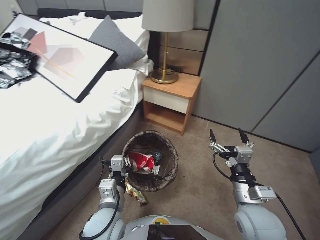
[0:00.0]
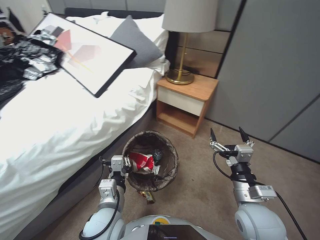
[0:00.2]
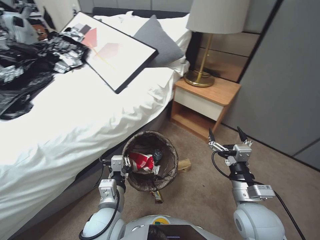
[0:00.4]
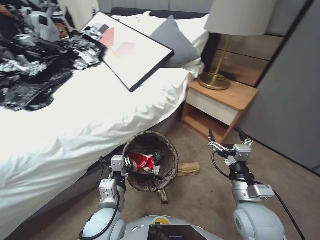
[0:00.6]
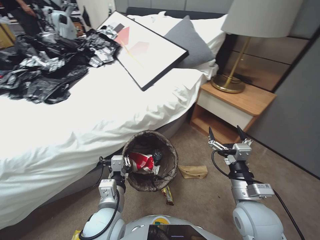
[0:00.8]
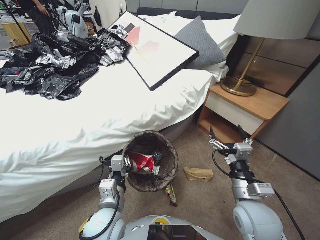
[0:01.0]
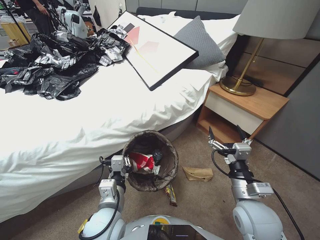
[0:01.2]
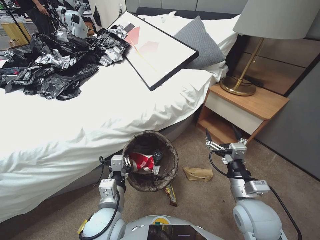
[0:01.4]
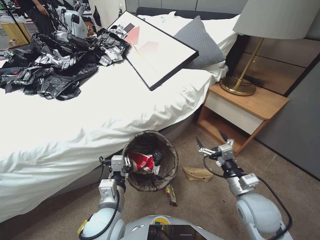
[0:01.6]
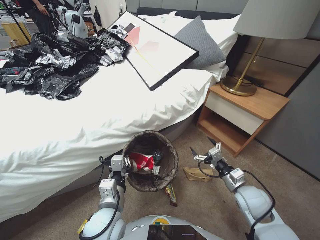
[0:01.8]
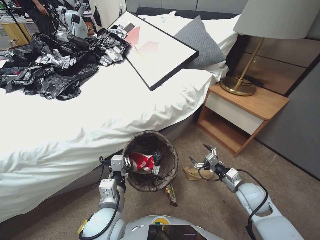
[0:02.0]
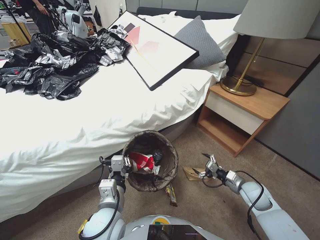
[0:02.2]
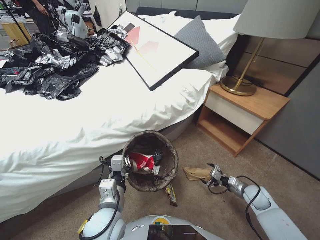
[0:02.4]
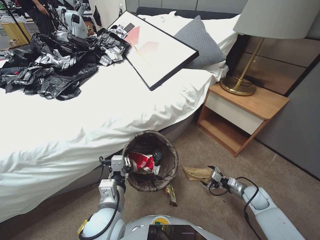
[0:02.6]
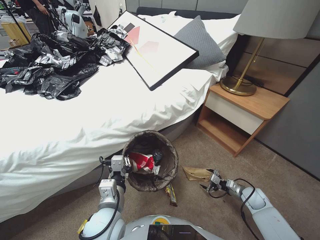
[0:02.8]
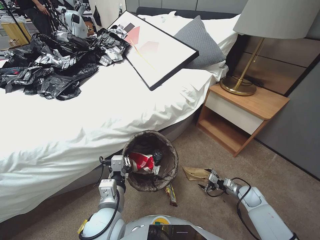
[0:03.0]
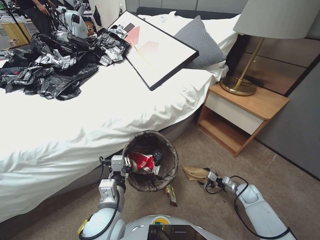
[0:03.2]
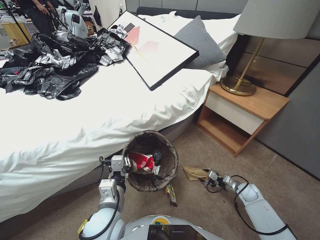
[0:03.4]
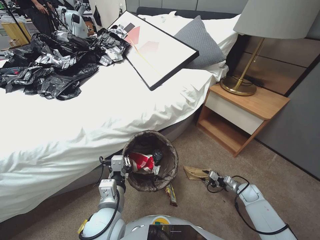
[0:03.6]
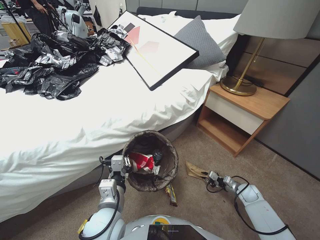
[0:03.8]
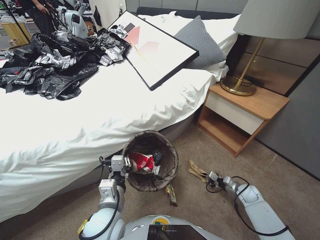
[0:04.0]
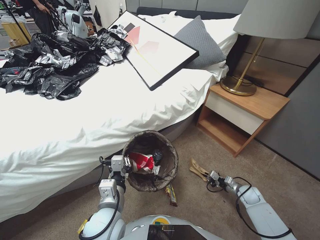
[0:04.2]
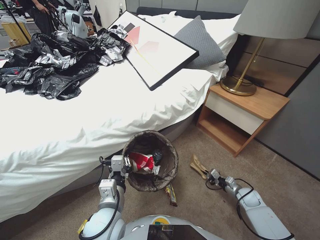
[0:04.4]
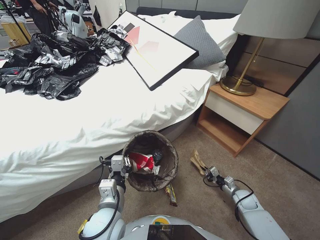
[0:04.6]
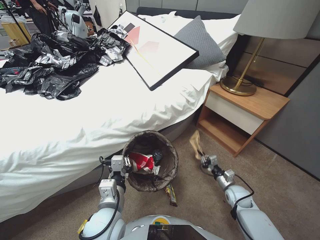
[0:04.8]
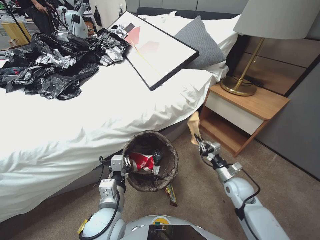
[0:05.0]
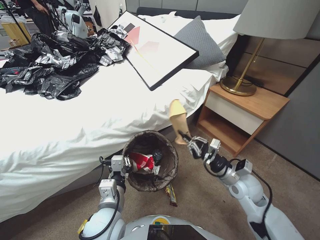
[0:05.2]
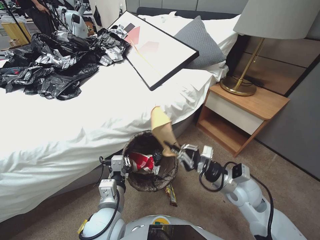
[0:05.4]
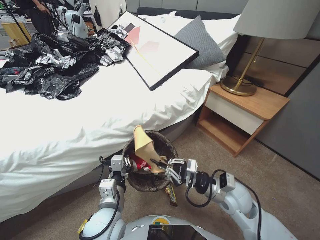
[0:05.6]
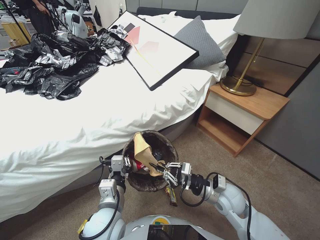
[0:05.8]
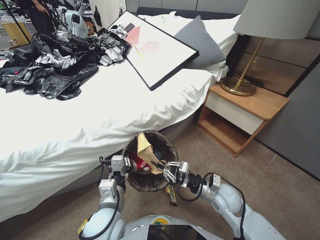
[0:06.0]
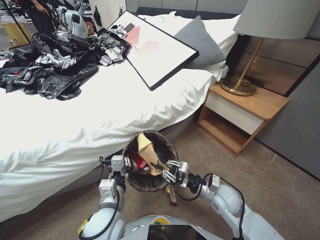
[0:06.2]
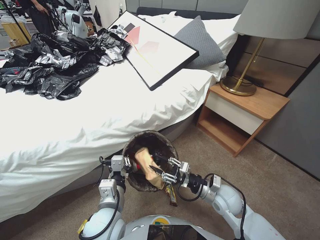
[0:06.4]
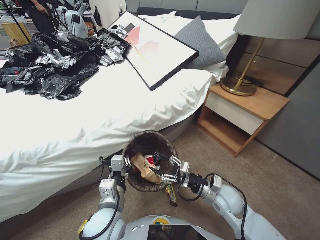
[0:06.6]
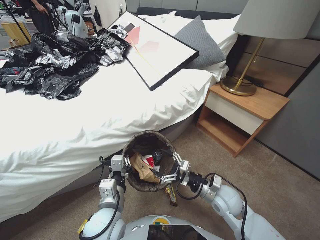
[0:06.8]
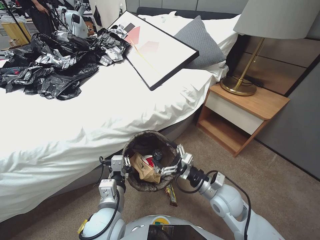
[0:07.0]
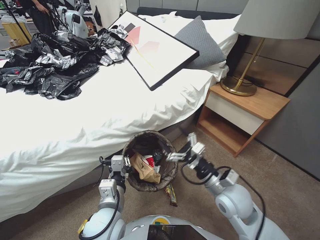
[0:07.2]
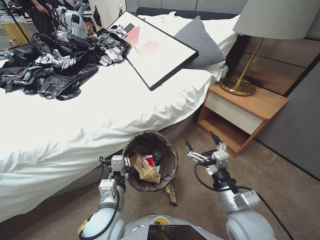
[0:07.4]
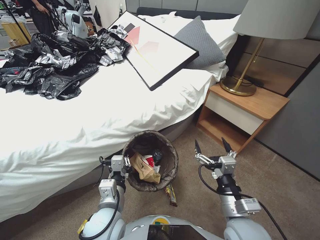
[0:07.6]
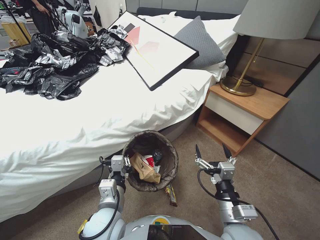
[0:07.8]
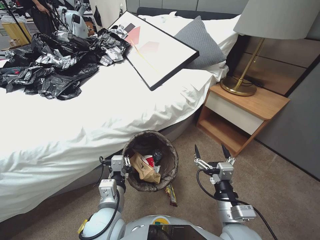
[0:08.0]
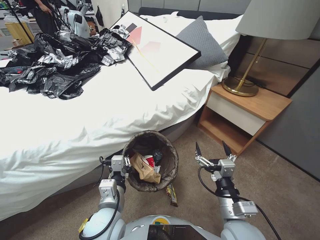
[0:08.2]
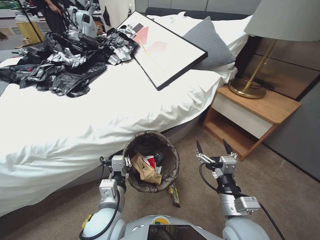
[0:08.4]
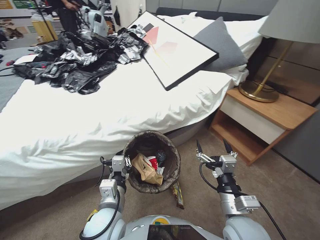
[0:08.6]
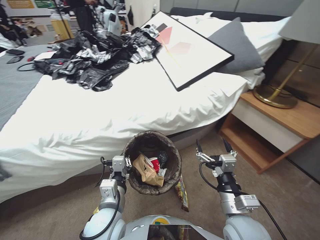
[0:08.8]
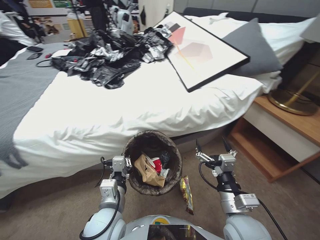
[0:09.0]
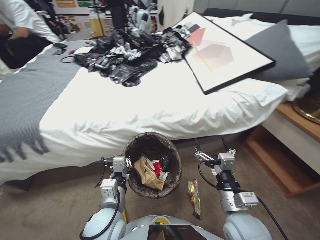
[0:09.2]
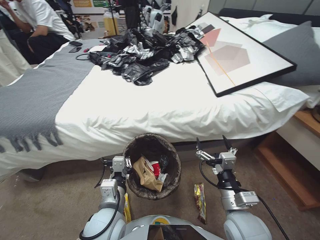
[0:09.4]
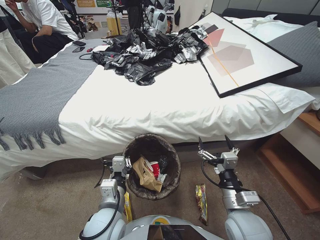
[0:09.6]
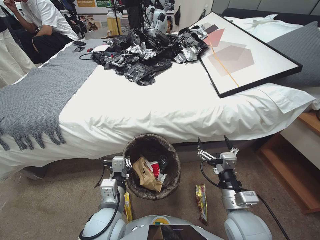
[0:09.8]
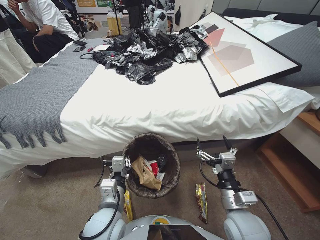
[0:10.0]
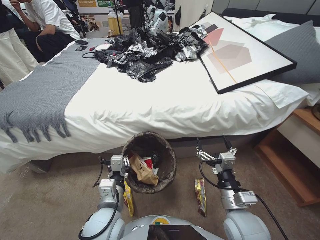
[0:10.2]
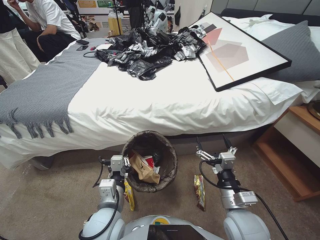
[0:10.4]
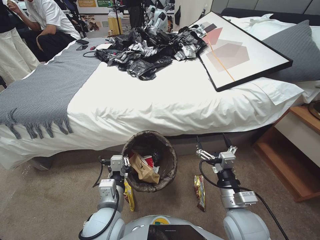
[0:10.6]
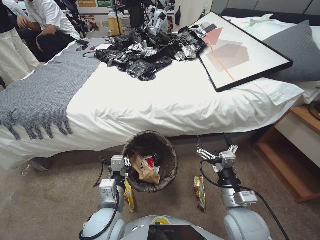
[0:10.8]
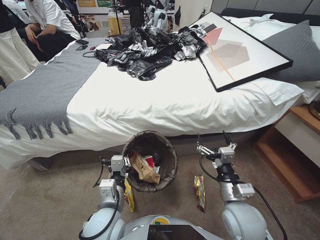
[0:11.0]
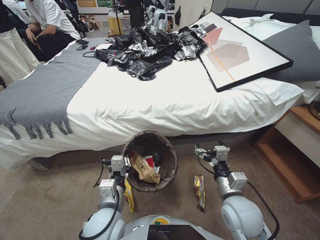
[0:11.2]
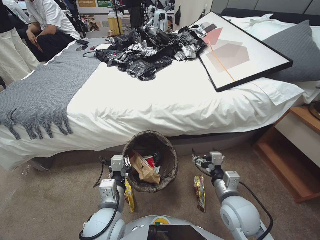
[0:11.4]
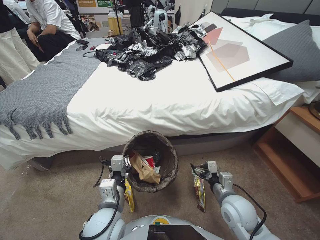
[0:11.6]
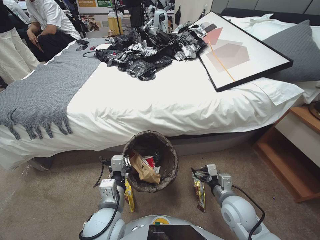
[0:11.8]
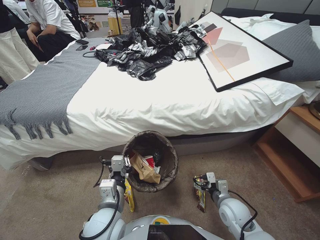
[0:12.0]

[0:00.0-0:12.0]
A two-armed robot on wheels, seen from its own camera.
Task of the whole recording: Pick up the trash bin, then pick up the garbage from the floor and place it into the trash bin.
0:01.6 to 0:03.0: The right gripper shifts about 30 cm downward, to the right and forward.
0:03.0 to 0:04.4: The right gripper closes.
0:04.4 to 0:06.0: The right gripper is displaced to the left and upward by approximately 30 cm.
0:06.0 to 0:07.6: The right gripper goes about 10 cm backward and upward, and opens its fingers.
0:10.4 to 0:12.0: The right gripper goes approximately 10 cm downward and forward.

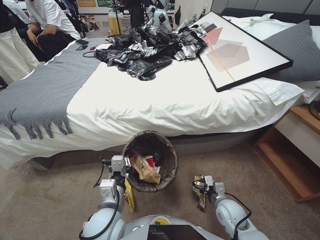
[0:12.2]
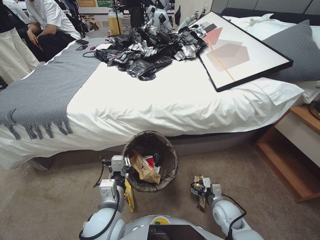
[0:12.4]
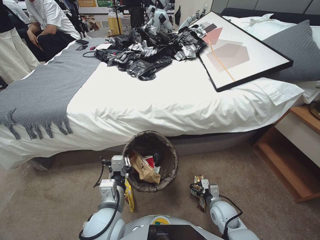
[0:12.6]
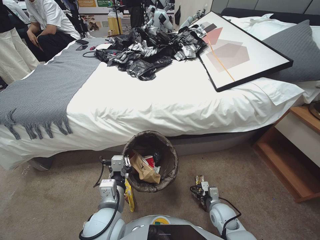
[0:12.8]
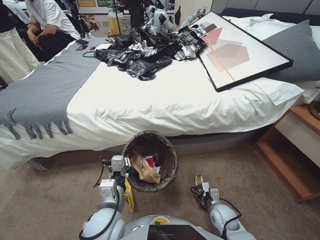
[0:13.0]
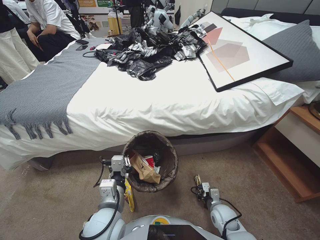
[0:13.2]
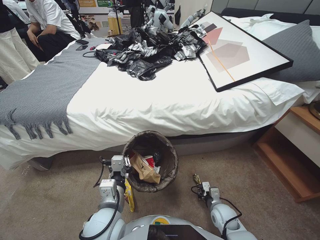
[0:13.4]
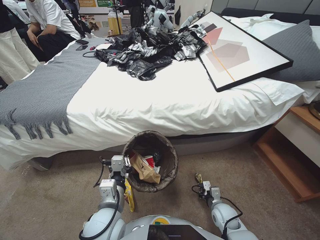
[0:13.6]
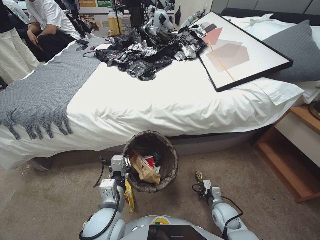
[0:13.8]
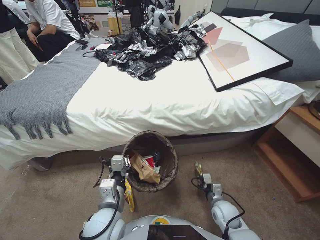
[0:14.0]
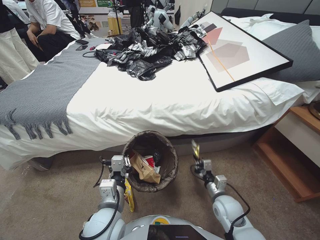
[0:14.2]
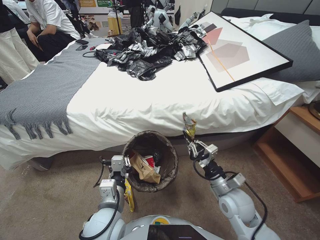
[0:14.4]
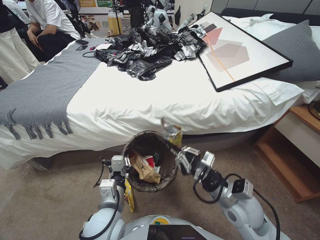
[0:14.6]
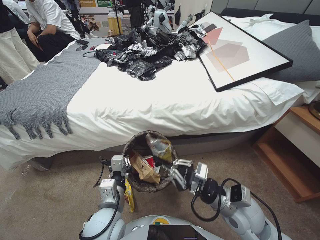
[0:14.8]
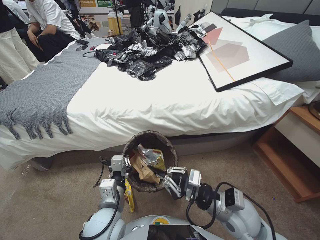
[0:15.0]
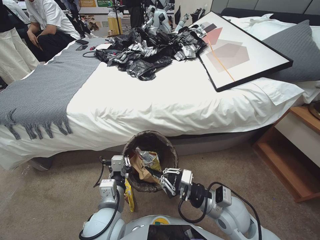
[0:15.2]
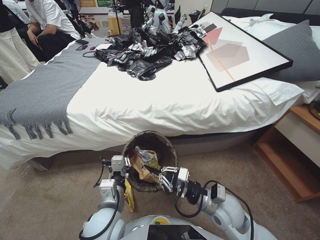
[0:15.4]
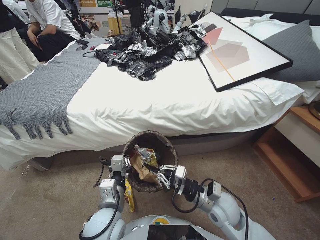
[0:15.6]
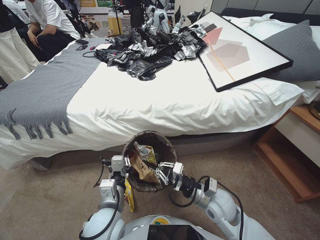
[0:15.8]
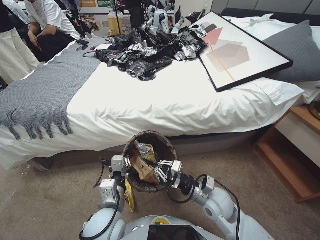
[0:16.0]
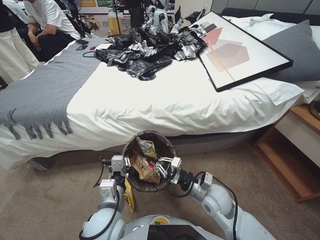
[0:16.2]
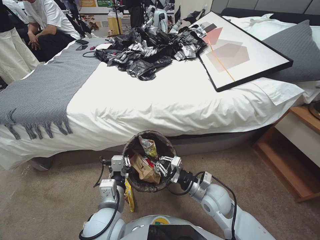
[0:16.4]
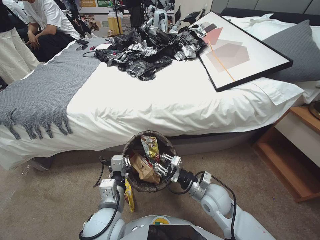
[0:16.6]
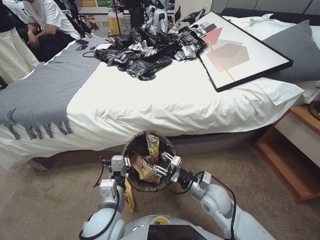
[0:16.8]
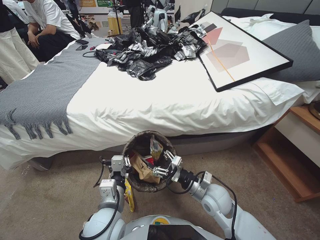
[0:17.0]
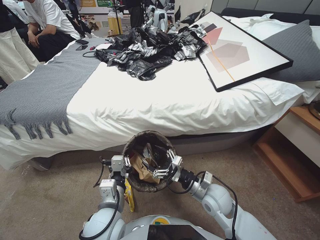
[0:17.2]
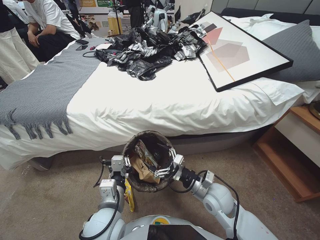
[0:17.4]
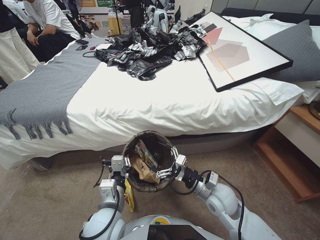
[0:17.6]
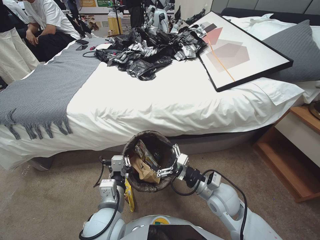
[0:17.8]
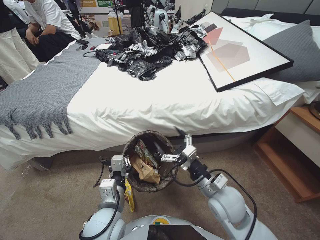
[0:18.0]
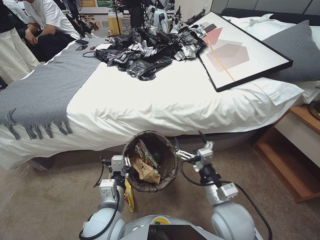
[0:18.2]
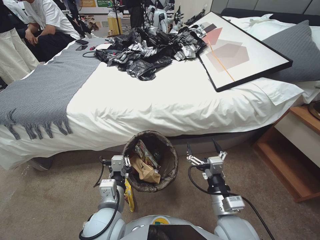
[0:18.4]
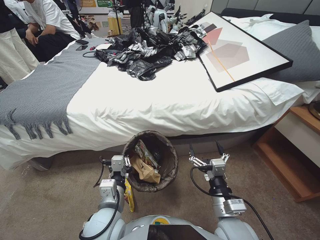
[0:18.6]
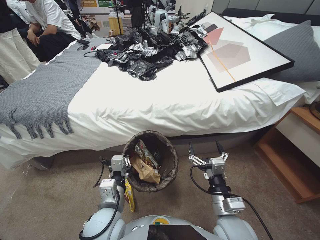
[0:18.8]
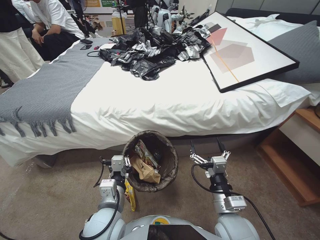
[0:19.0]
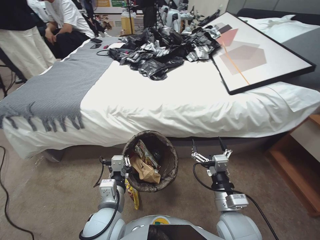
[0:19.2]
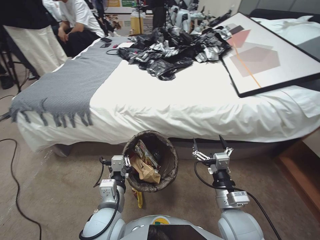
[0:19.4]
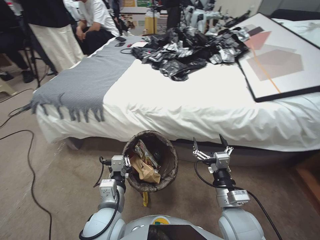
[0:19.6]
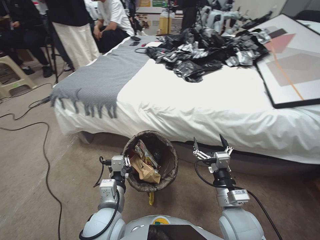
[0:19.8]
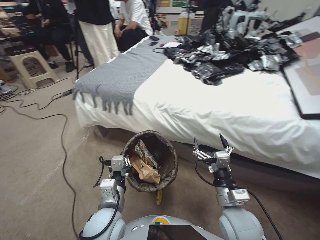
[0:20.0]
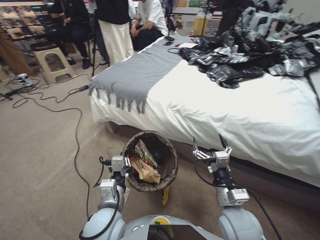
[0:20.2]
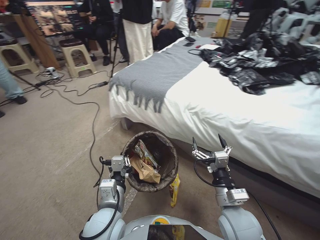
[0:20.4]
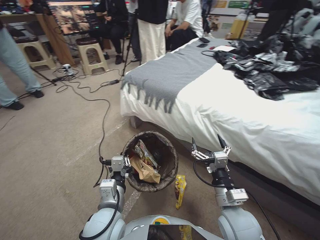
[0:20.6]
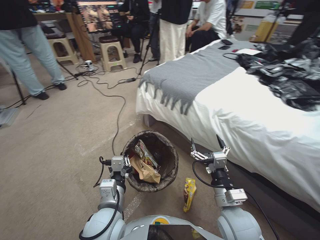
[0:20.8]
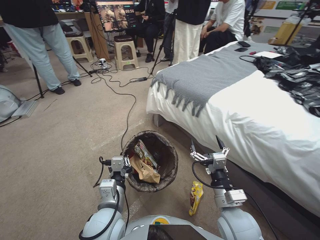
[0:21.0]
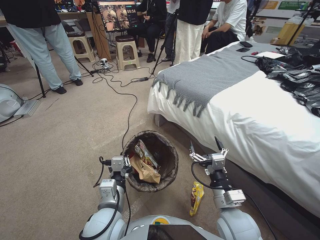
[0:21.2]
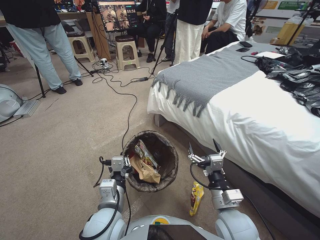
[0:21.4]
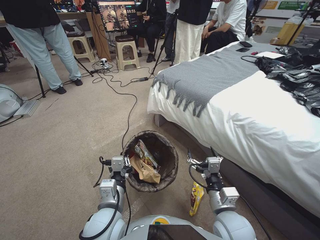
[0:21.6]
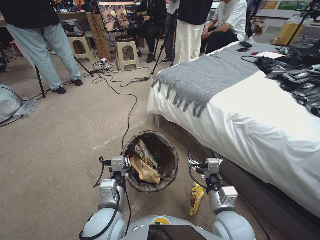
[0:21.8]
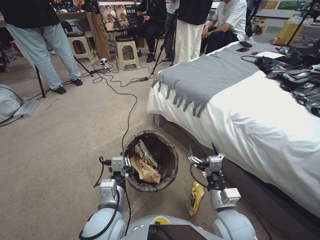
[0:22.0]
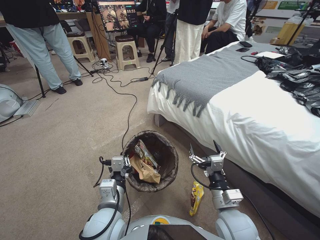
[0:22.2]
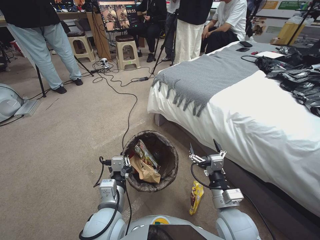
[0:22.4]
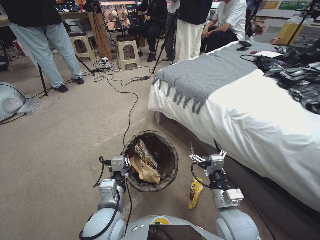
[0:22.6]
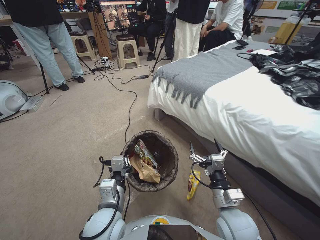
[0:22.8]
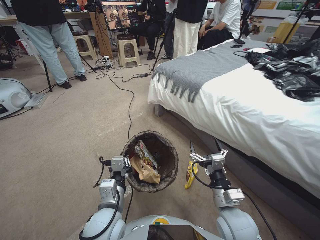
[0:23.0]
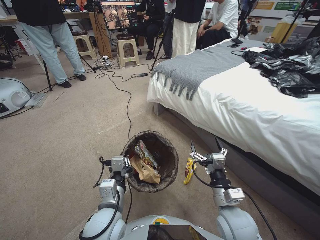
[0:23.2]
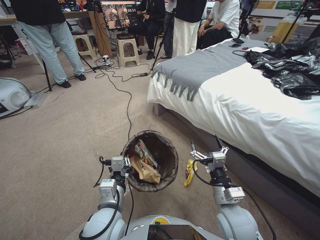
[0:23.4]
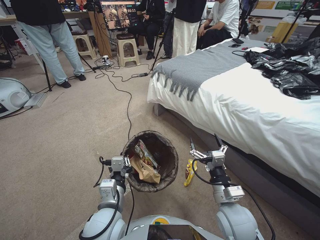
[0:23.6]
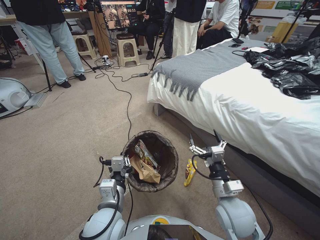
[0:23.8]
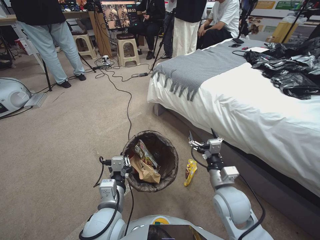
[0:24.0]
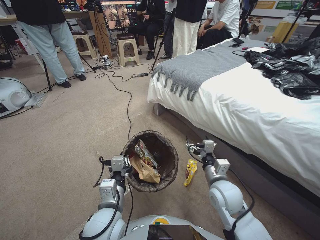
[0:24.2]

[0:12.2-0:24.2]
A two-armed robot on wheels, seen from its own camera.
Task of the whole recording: Pick up the trash bin, then pick up the garbage from the floor and place it into the trash bin.
0:12.2 to 0:13.8: The right gripper goes roughly 10 cm downward, and closes.
0:13.8 to 0:15.2: The right gripper is displaced upward by about 20 cm.
0:15.2 to 0:16.6: The right gripper moves forward, about 5 cm.
0:16.6 to 0:18.2: The right gripper moves upward, roughly 5 cm, and opens.
0:21.2 to 0:22.6: The grippers make only small movements.
0:22.6 to 0:24.2: The right gripper heads forward, covering approximately 5 cm.
